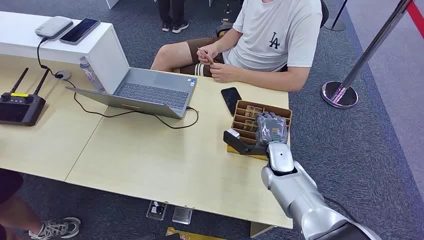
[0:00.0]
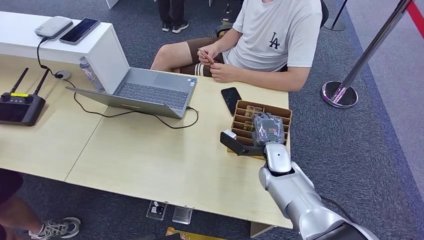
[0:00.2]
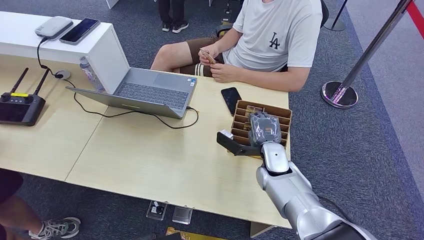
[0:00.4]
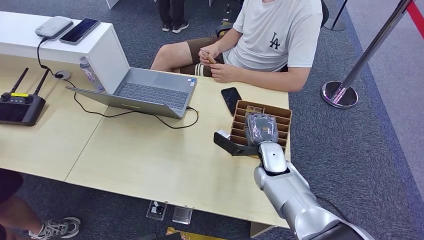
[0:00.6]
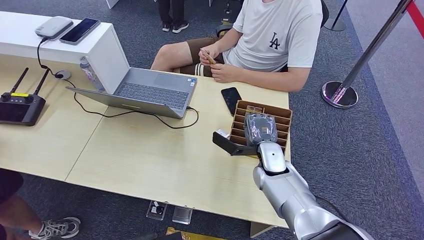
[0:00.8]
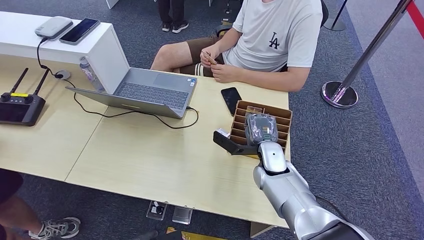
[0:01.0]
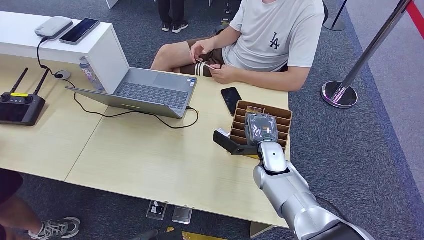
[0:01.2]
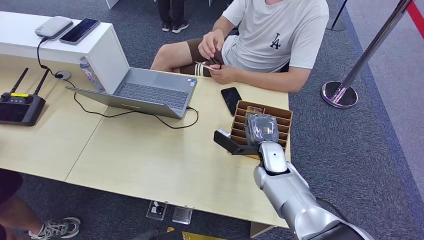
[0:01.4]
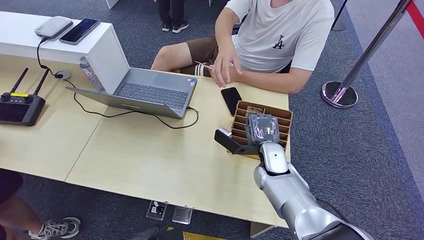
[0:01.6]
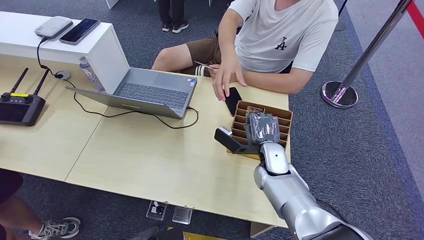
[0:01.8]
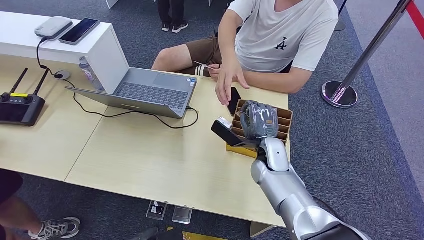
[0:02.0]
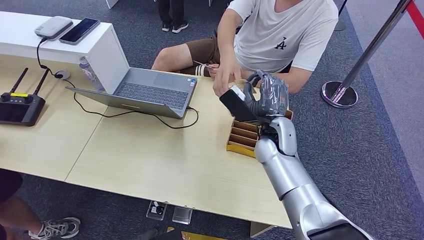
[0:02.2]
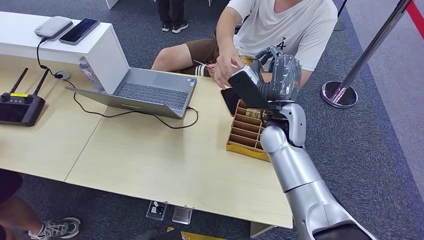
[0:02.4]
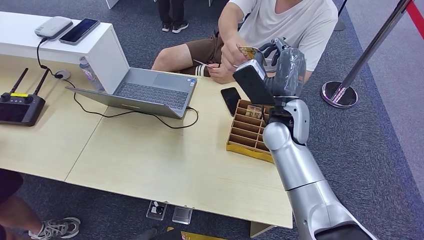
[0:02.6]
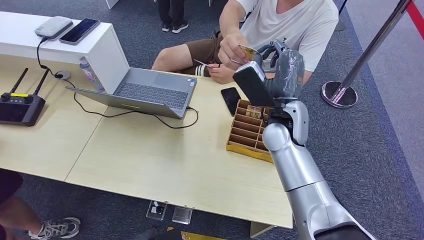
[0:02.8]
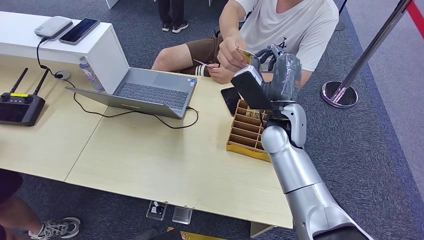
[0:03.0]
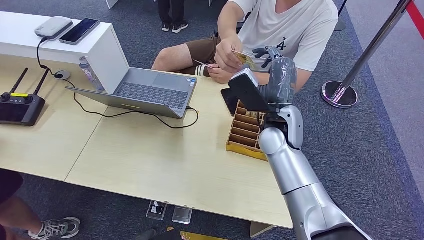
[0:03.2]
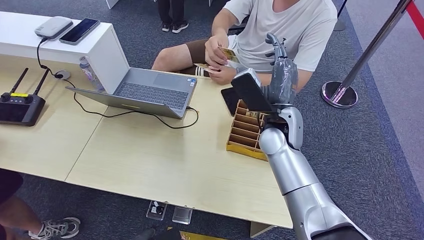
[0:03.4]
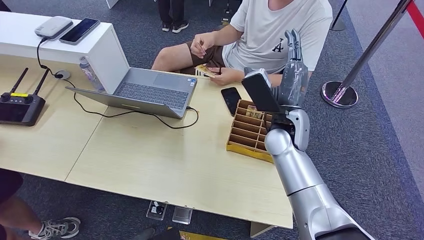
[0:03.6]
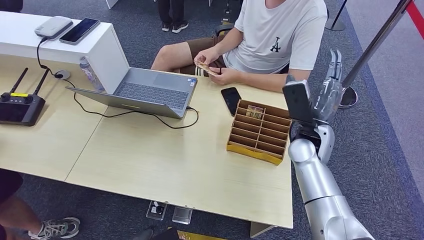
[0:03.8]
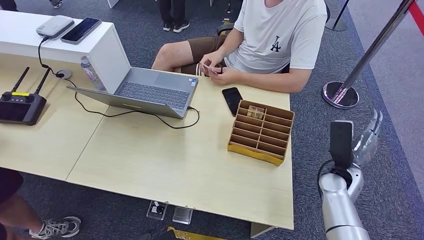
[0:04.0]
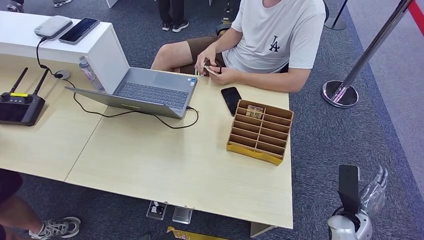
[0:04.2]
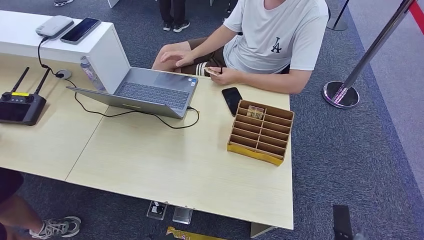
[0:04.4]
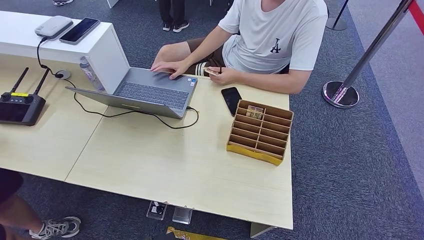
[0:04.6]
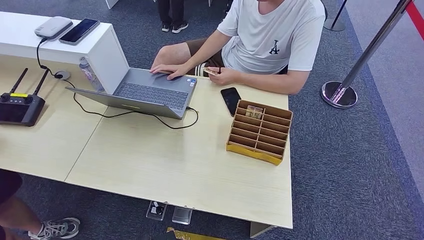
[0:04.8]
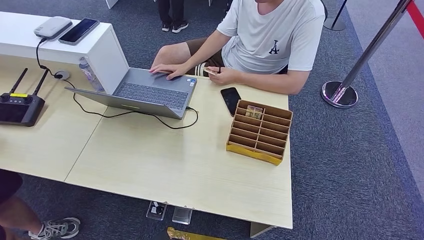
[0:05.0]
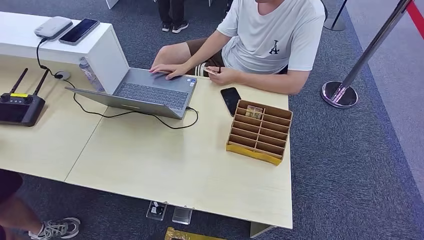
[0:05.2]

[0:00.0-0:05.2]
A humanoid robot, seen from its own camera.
Step, 0:00.0 to 0:02.6: Pick up the key card from the card box.
Step, 0:02.8 to 0:05.0: Hand the key card to the target.
0:01.8 to 0:03.4: The right hand heads upward, covering about 15 cm.
0:03.4 to 0:05.2: The right hand shifts roughly 60 cm downward, backward and to the right; the left hand moves backward, approximately 5 cm.
